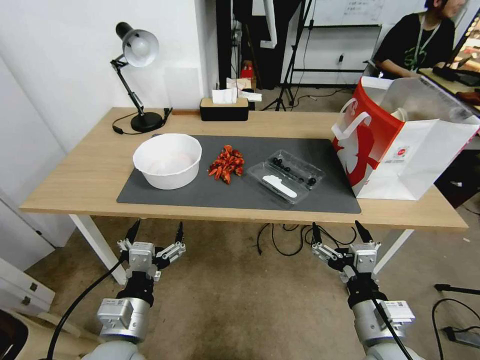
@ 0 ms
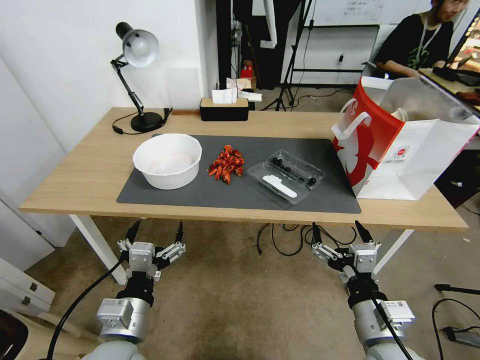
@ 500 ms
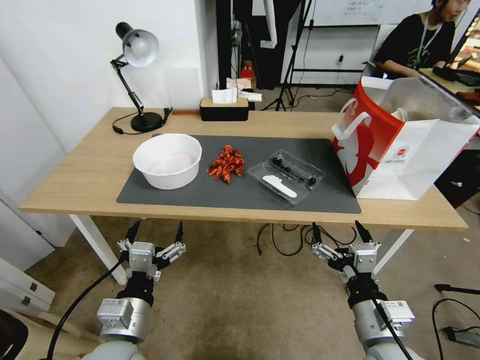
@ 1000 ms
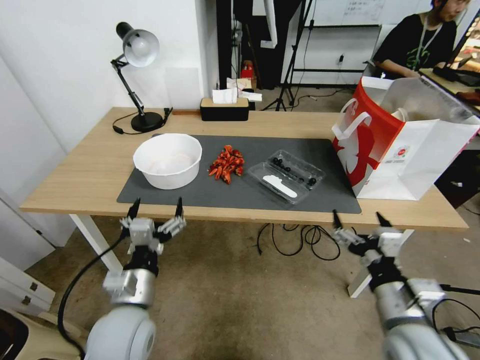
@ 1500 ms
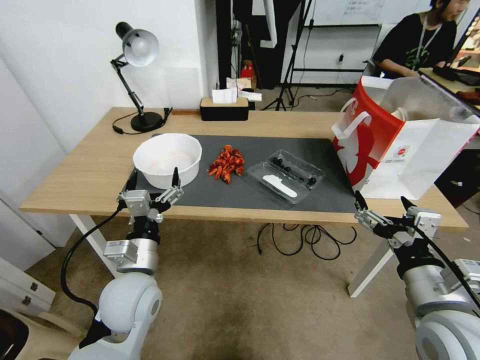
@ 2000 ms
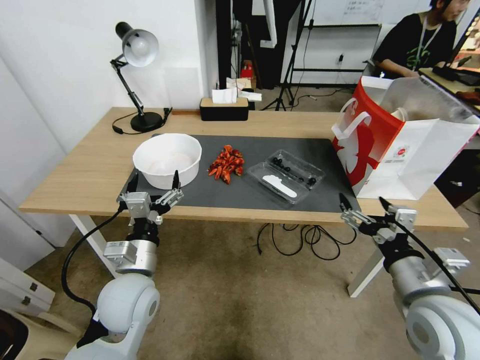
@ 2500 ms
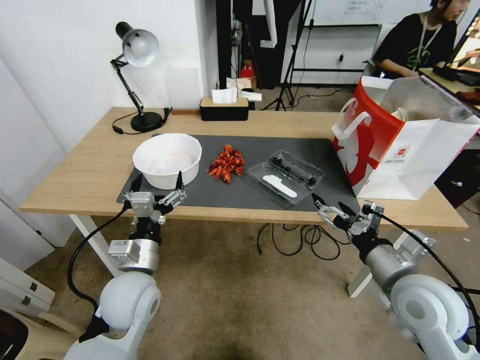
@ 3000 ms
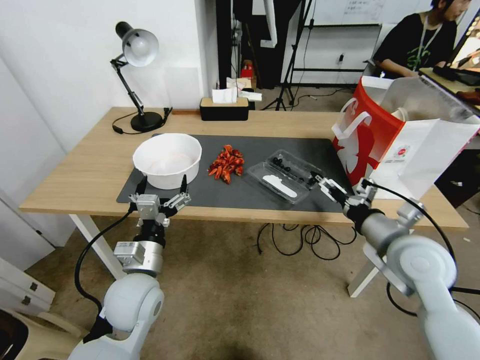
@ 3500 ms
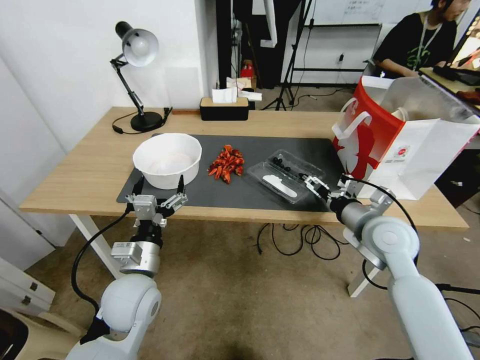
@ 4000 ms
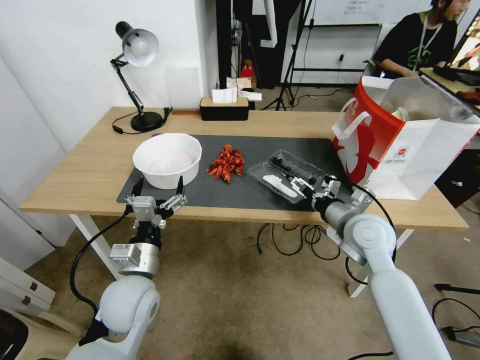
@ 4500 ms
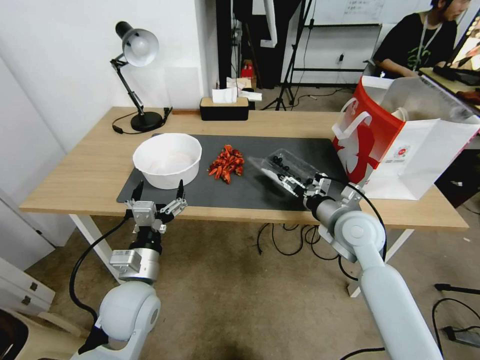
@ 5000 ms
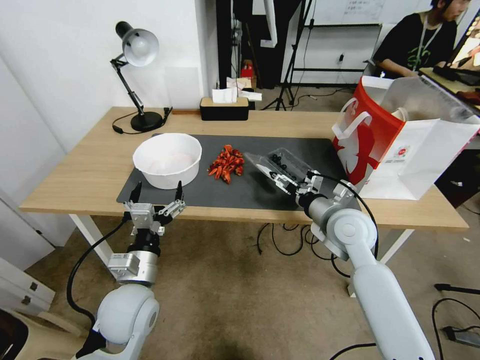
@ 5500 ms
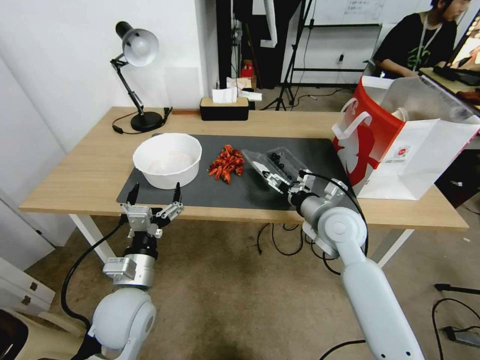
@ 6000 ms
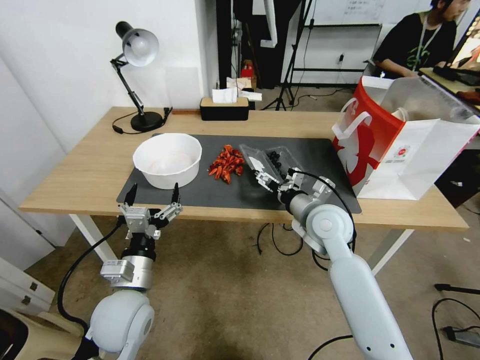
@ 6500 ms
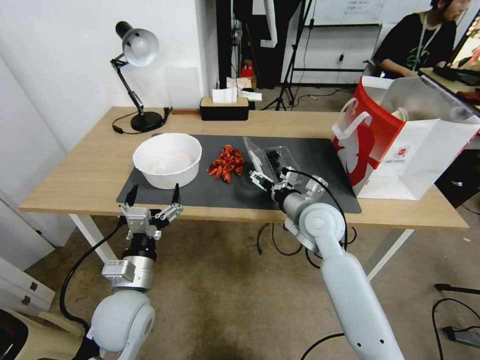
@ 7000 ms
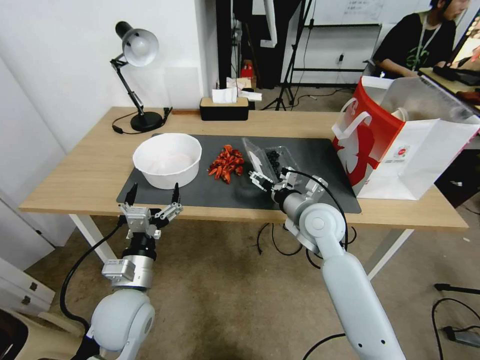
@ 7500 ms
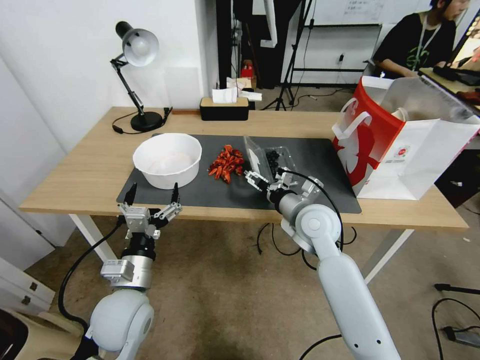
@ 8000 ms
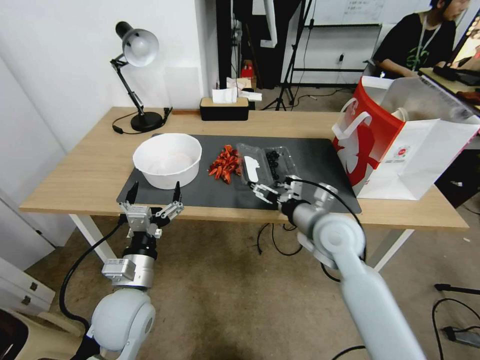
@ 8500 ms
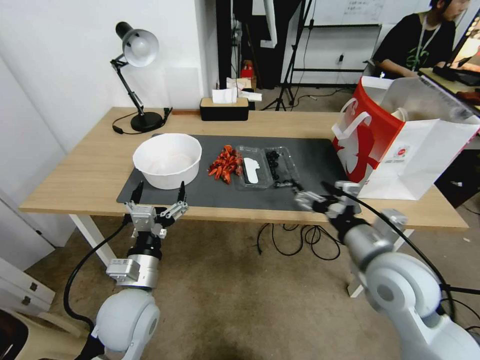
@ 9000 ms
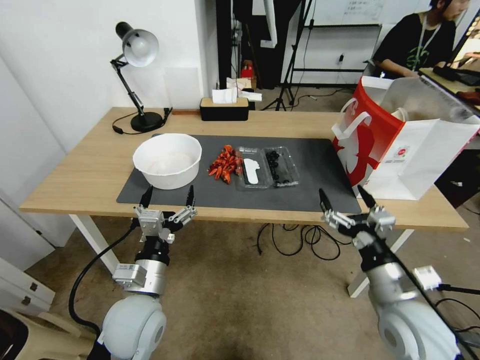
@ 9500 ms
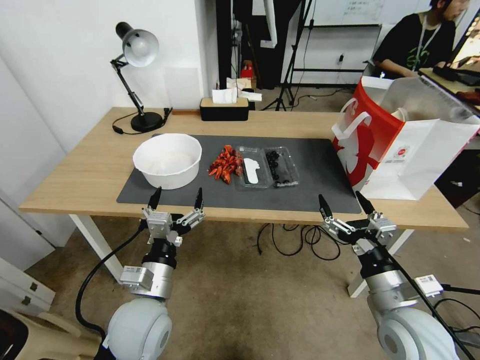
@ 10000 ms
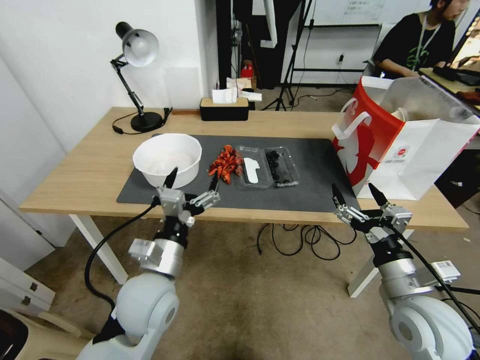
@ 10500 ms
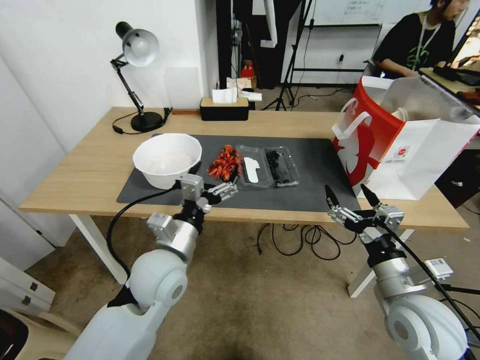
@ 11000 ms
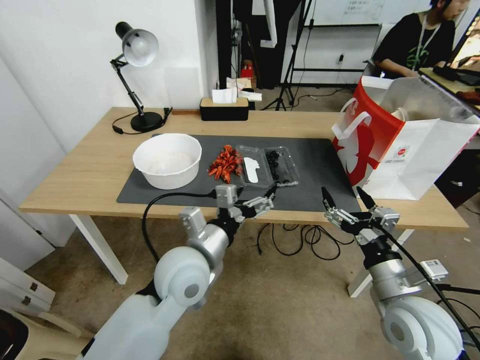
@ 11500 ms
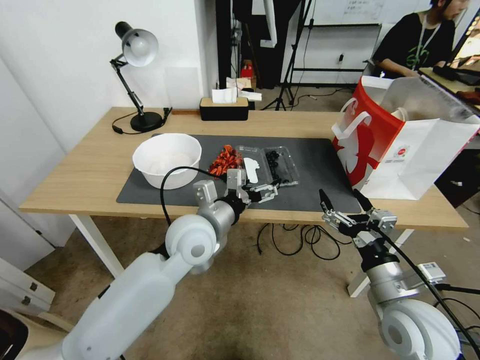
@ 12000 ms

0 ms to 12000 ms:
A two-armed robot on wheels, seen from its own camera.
2000 ms to 4000 ms: The right gripper shifts about 20 cm forward.
4000 ms to 6000 ms: The right gripper goes some 10 cm to the left.
6000 ms to 8000 ms: The grippers stay close to where they were, moving slightly.
8000 ms to 10000 ms: The right gripper travels backward and to the right by approximately 25 cm.
10000 ms to 12000 ms: The left gripper shifts about 15 cm forward, to the right and upward.

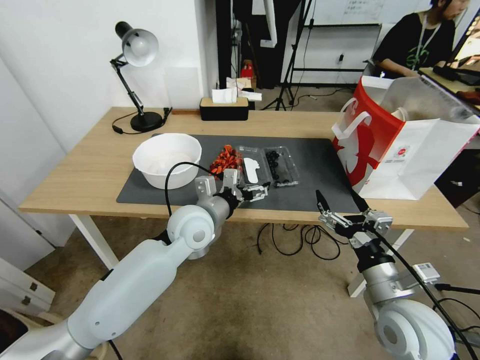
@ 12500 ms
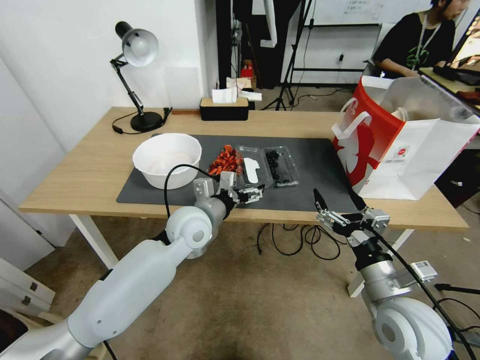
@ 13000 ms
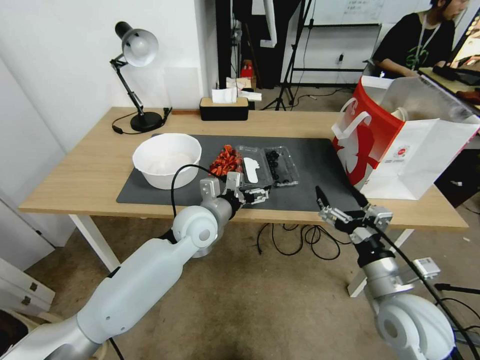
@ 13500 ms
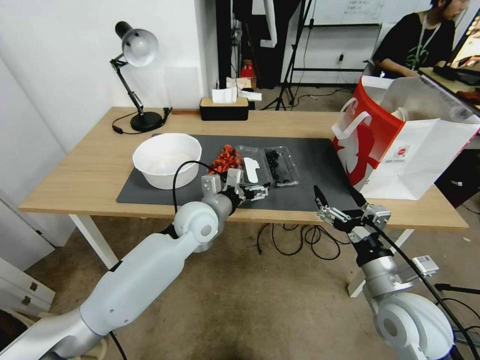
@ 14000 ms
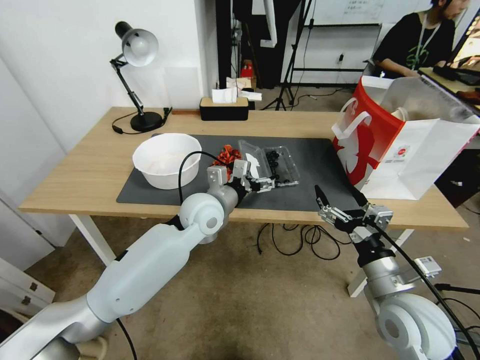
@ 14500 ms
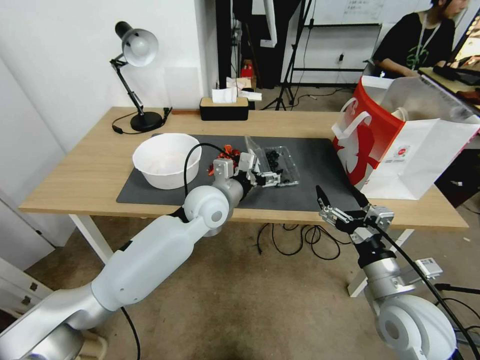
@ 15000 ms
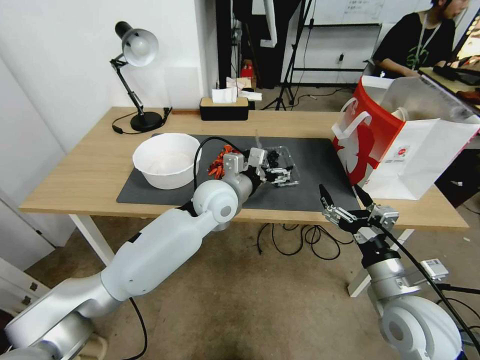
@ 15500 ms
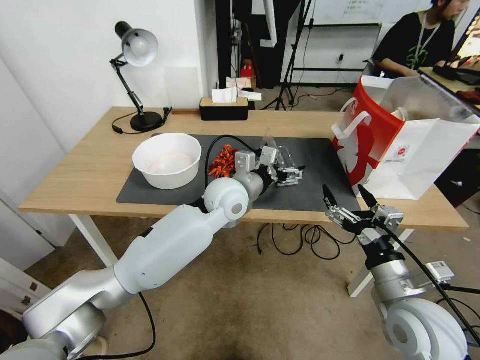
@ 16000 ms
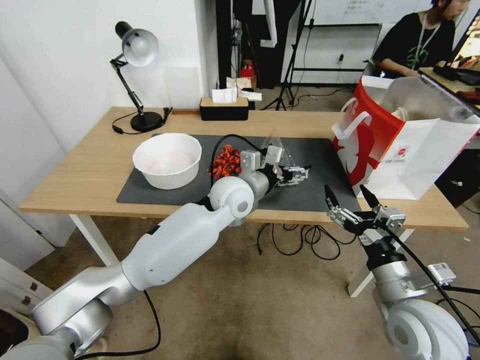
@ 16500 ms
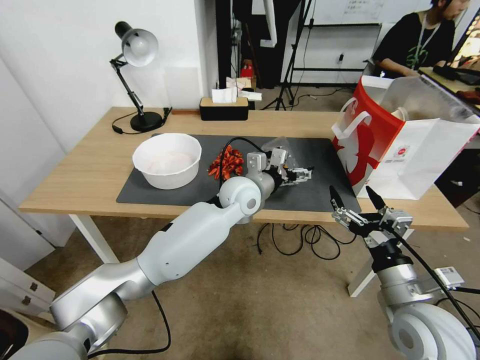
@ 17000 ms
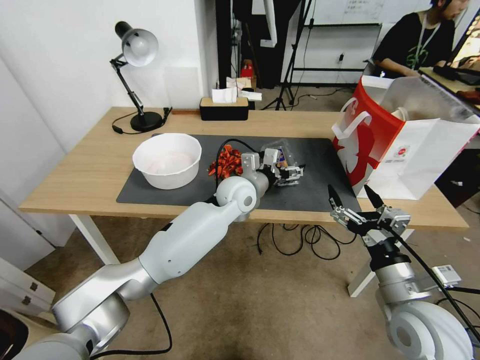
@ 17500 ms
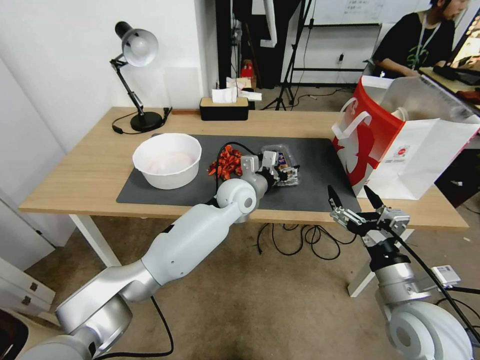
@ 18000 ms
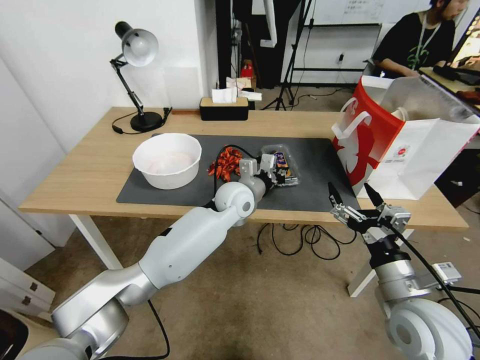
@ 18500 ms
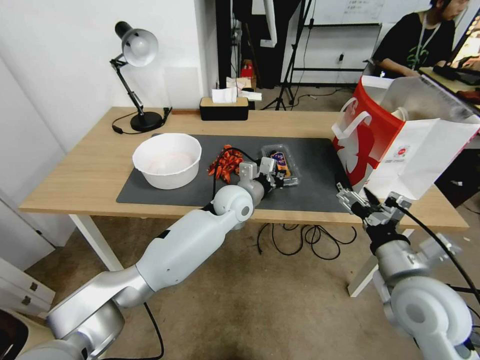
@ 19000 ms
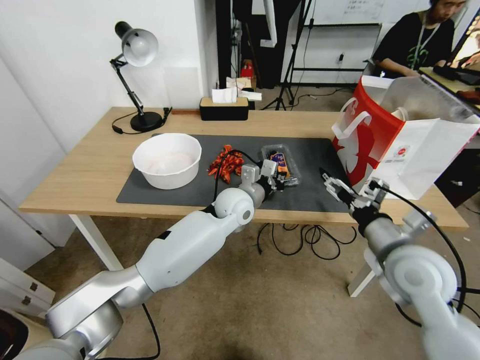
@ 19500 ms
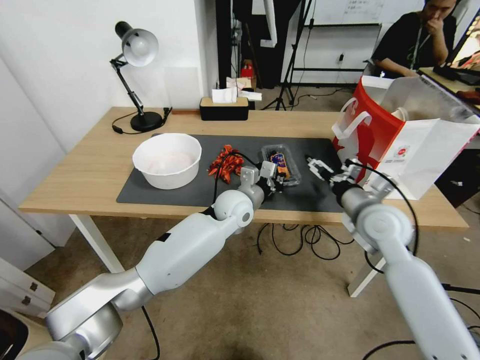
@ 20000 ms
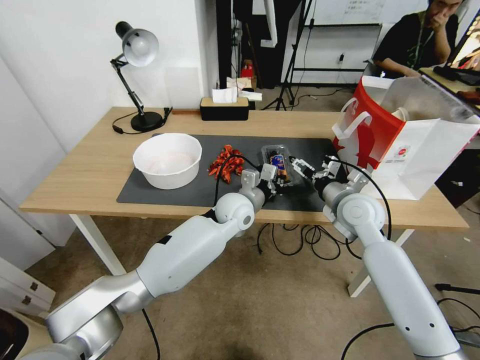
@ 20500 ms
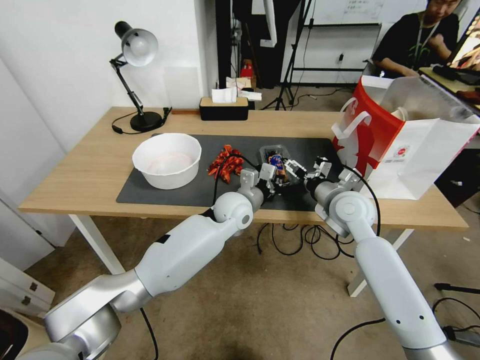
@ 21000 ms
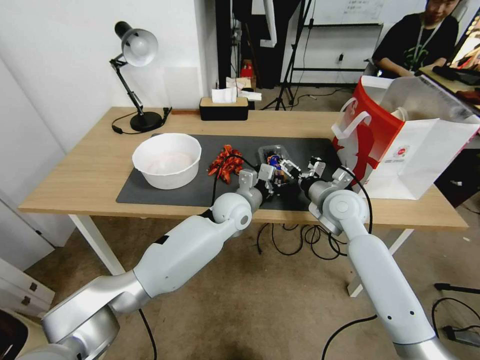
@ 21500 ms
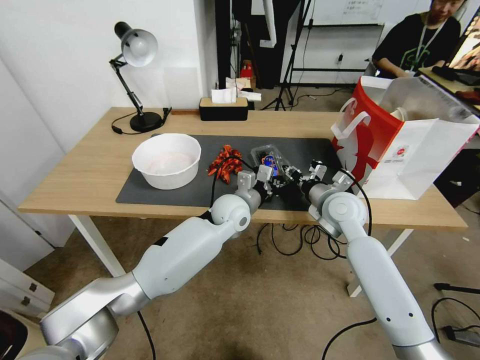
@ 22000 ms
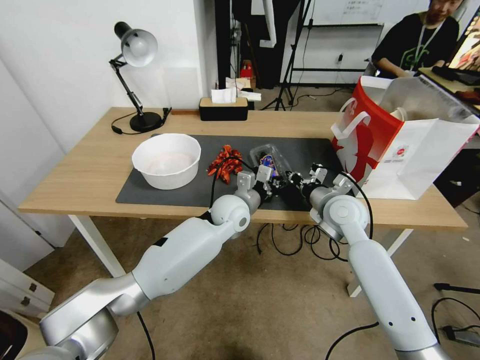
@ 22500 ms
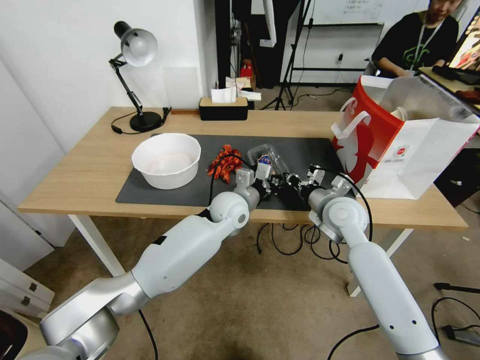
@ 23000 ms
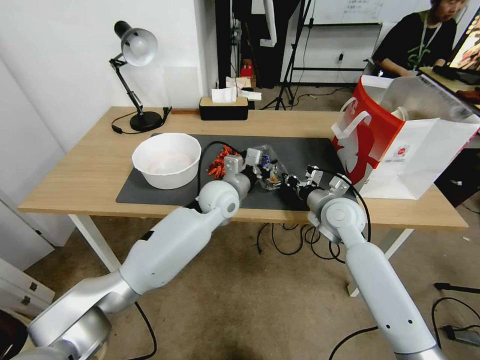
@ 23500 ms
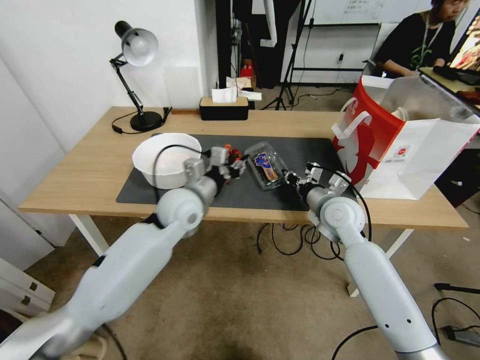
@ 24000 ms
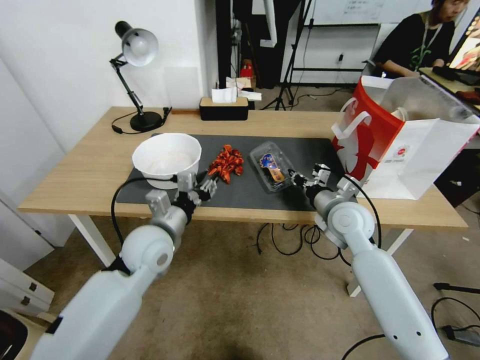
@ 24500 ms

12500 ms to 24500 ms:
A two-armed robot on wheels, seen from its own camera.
12500 ms to 14500 ms: The grippers stay close to where they were, moving slightly.
14500 ms to 16500 ms: The left gripper heads to the right, covering about 5 cm.
16500 ms to 18500 ms: The left gripper heads downward, covering some 5 cm, and closes.
18500 ms to 20500 ms: The right gripper travels forward by roughly 20 cm.
20500 ms to 22500 ms: The right gripper closes up.
22500 ms to 24500 ms: The left gripper shifts some 20 cm to the left and backward, and opens its fingers.

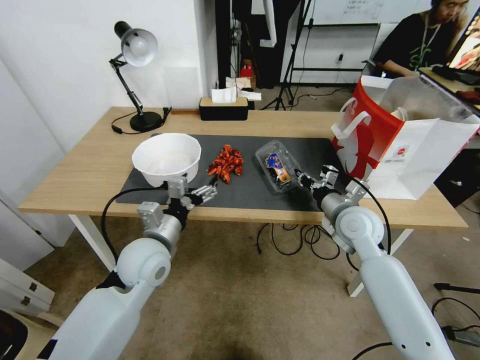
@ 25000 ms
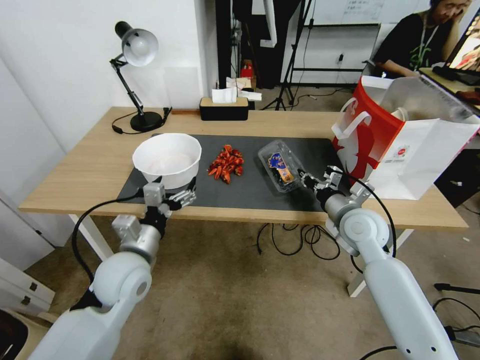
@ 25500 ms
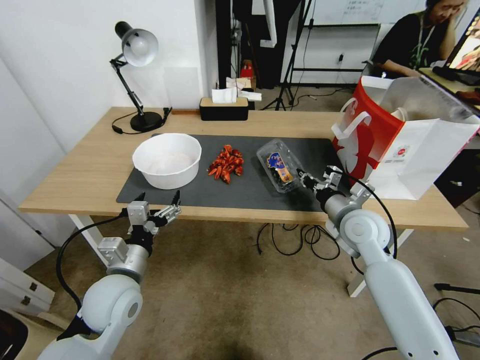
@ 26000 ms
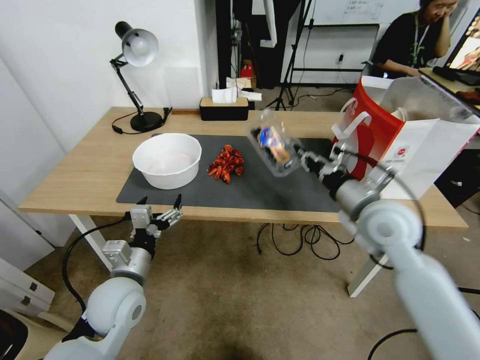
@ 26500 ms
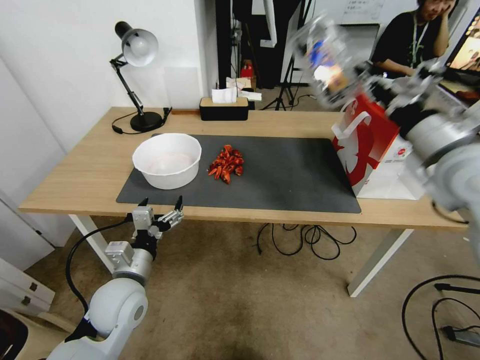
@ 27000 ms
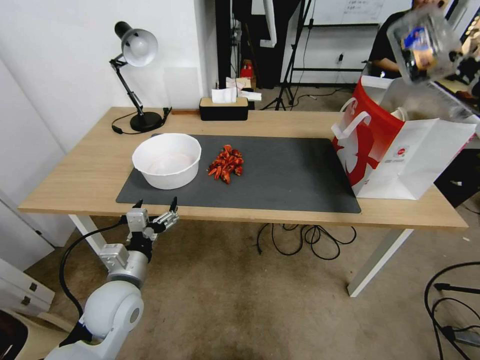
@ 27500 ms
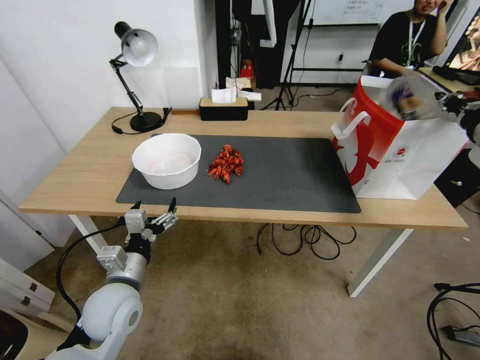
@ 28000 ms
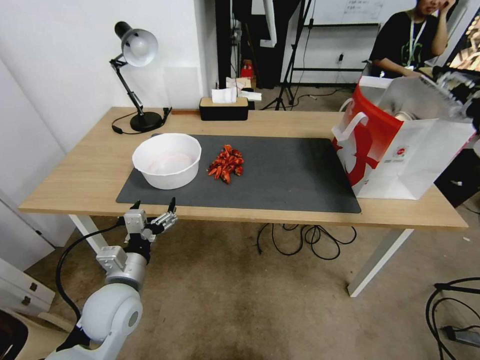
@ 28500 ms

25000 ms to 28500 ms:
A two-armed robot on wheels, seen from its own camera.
25000 ms to 27000 ms: The left gripper is displaced backward by approximately 5 cm, while the right gripper shifts about 20 cm upward.
27000 ms to 28500 ms: The right gripper heads to the right, covering roughly 10 cm, and opens up.
